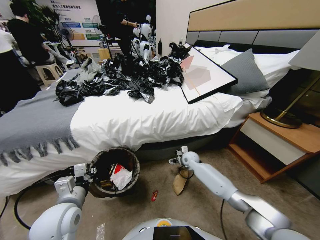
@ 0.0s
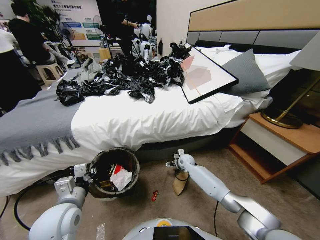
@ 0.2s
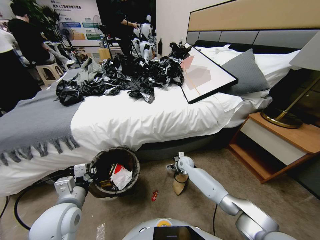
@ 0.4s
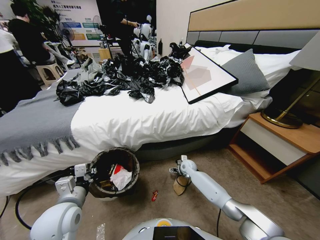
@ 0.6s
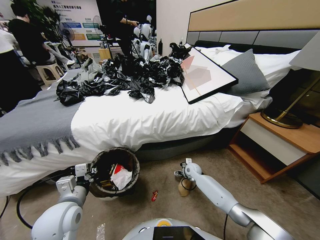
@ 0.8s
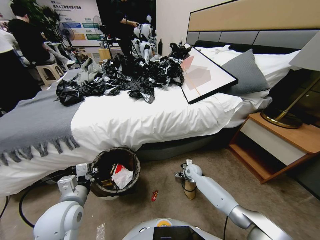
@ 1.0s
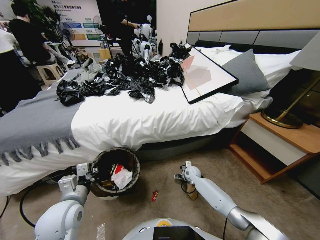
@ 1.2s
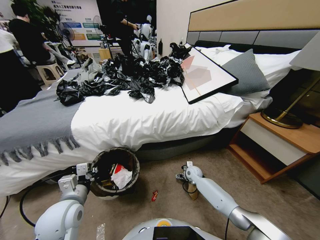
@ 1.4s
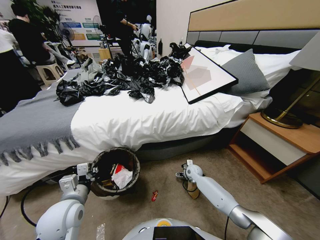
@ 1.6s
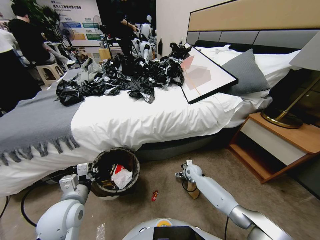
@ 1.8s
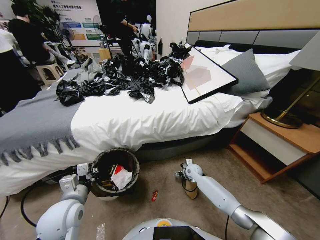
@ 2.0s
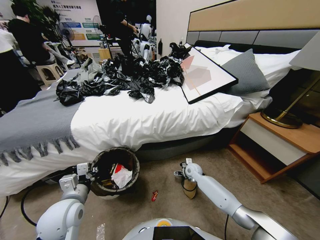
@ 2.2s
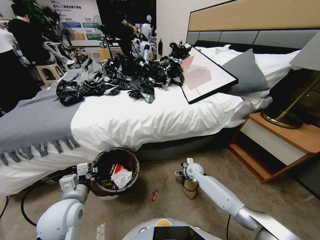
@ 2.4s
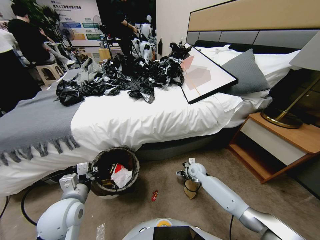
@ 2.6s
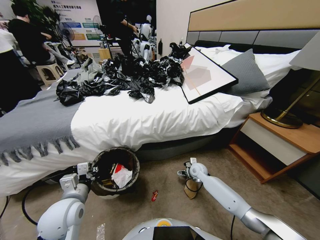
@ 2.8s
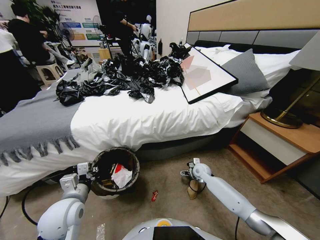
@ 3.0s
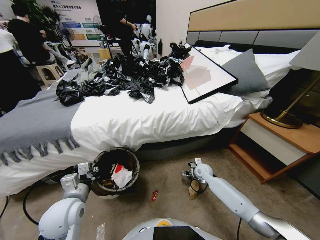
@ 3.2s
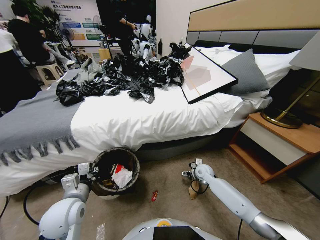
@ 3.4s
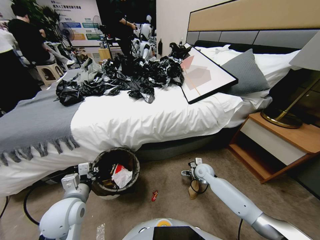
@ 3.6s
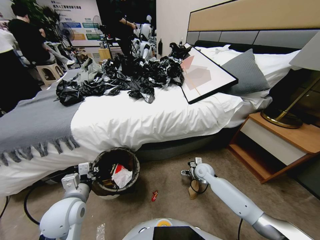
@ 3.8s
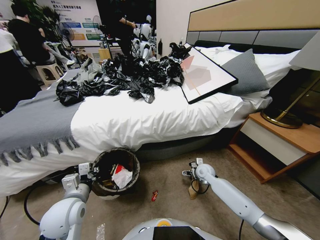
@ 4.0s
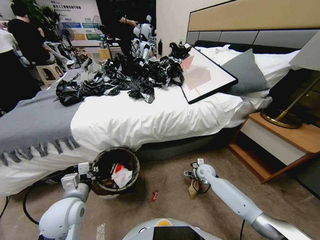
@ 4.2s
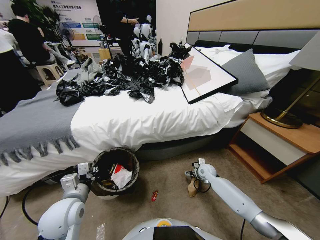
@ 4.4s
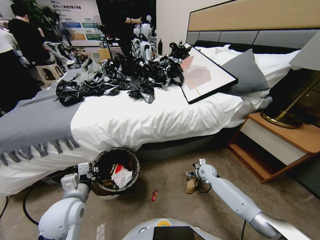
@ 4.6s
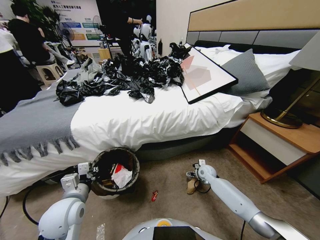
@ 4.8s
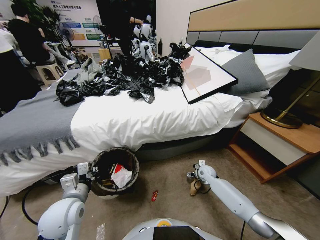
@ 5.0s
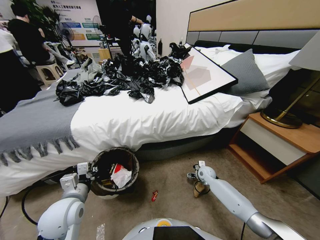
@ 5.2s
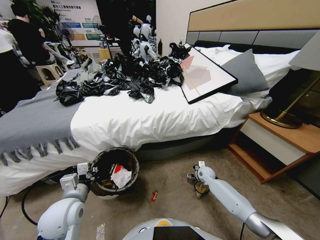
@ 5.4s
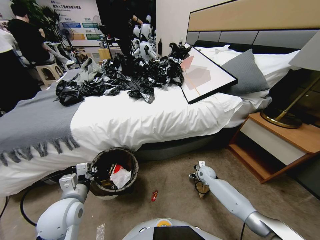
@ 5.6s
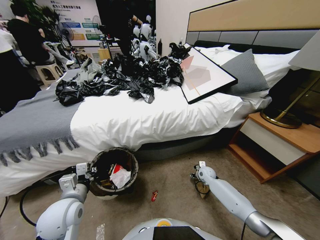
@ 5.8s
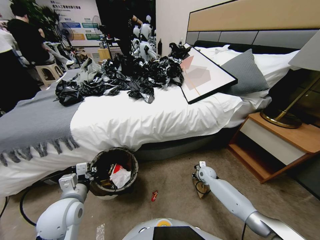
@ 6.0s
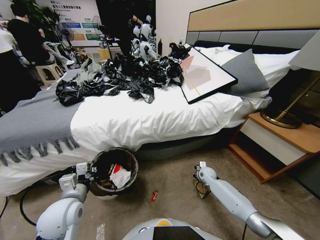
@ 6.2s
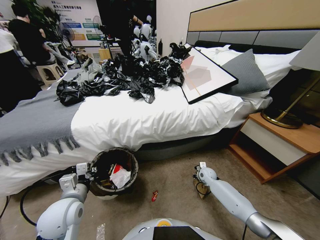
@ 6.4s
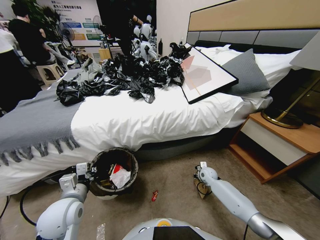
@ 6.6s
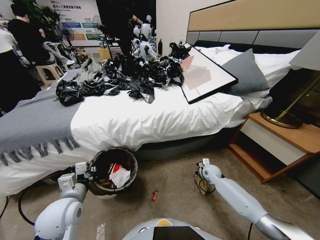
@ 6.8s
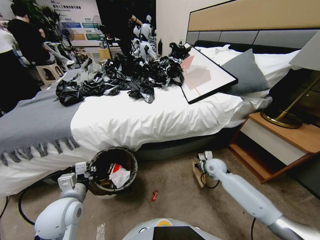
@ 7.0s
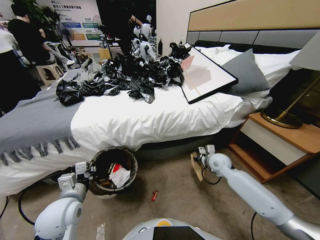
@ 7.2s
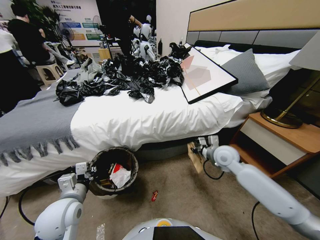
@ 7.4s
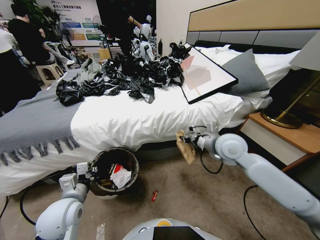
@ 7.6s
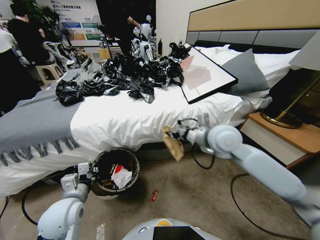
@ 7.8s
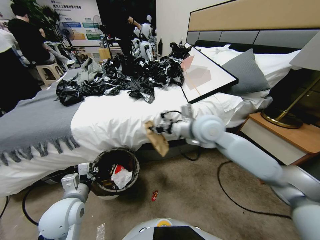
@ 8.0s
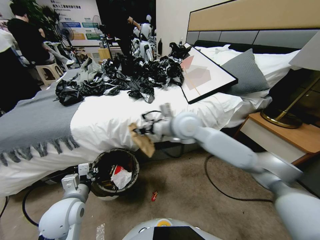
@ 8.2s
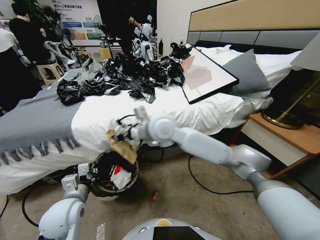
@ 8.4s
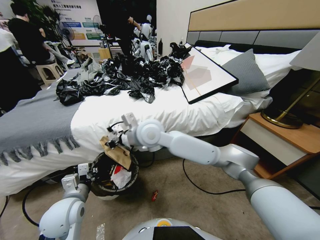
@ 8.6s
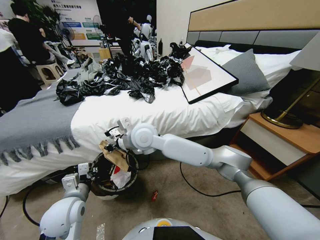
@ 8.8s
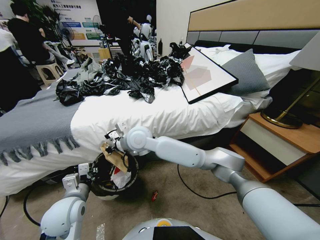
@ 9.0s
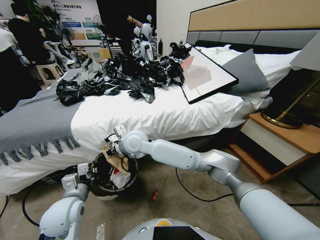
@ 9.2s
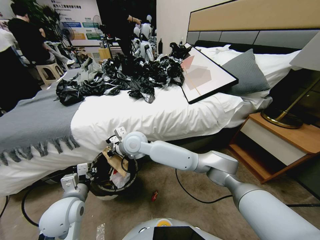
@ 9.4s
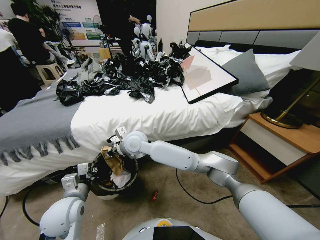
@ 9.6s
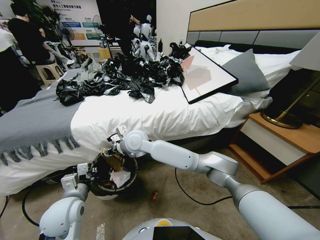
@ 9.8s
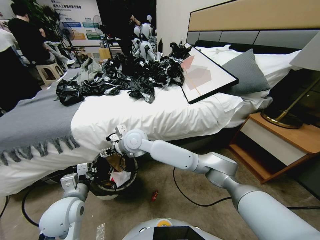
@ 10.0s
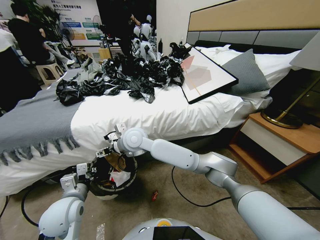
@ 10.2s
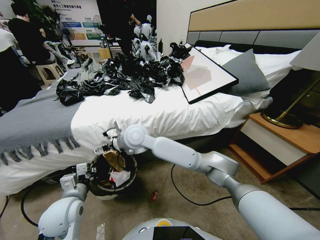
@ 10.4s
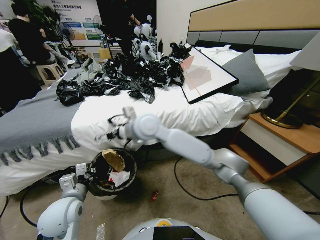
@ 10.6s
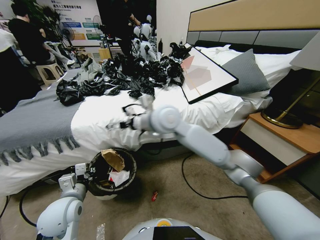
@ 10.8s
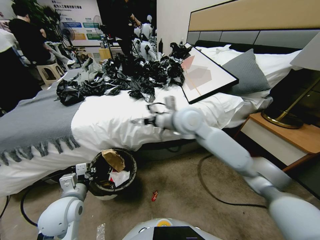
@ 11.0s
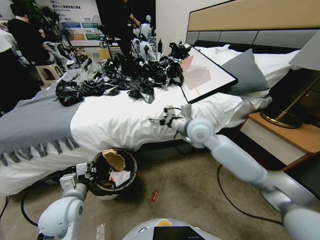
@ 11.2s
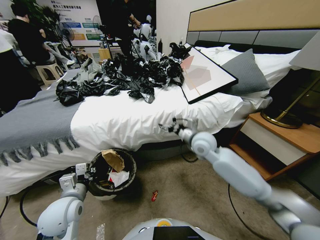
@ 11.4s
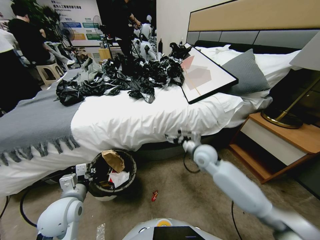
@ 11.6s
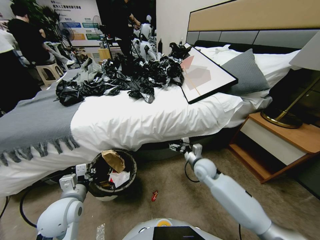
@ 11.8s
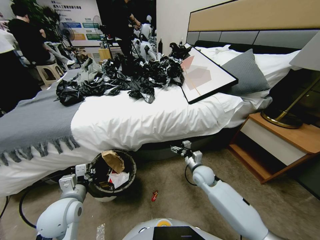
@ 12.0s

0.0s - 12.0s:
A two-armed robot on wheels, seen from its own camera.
Task of the whole recording: Pick up the trash bin, then pick up the garbage from the floor and place it into the trash bin.
0.0s - 1.6s: The right gripper shifts about 5 cm downward.
1.6s - 3.0s: The right gripper is displaced upward by roughly 5 cm.
3.0s - 4.4s: The grippers make only small movements.
4.4s - 6.0s: The right gripper closes.
6.0s - 7.6s: The right gripper moves upward, roughly 35 cm.
7.6s - 9.0s: The right gripper is displaced to the left by approximately 30 cm.
9.0s - 10.4s: The right gripper goes roughly 5 cm upward, and opens up.
10.4s - 12.0s: The right gripper shifts approximately 40 cm downward and to the right.

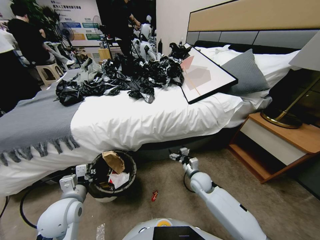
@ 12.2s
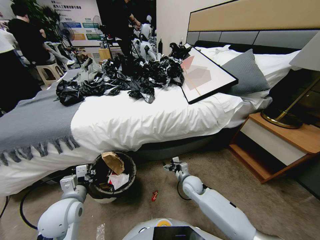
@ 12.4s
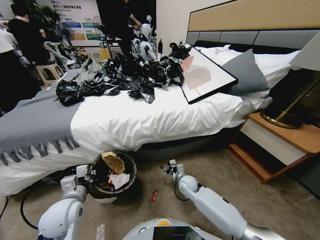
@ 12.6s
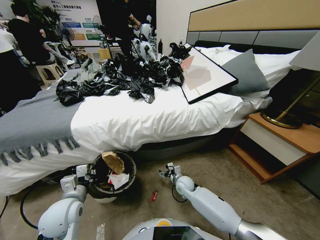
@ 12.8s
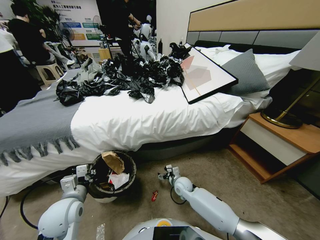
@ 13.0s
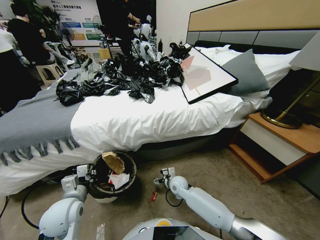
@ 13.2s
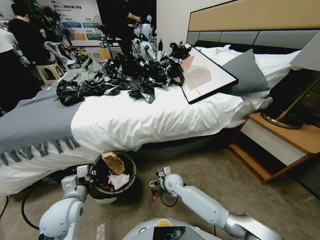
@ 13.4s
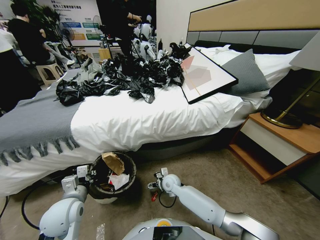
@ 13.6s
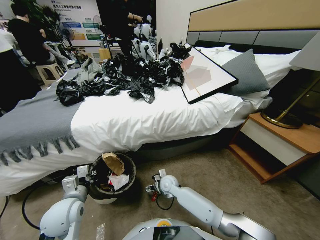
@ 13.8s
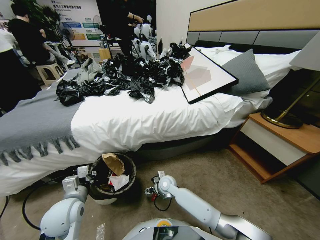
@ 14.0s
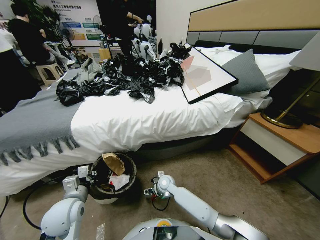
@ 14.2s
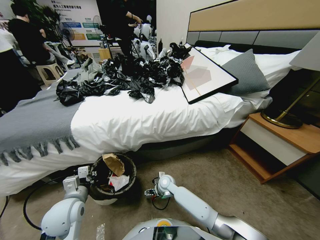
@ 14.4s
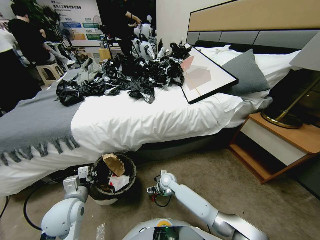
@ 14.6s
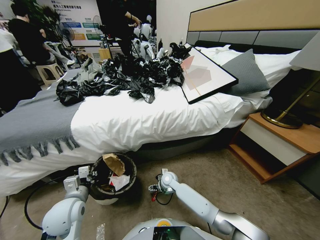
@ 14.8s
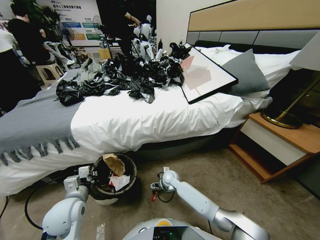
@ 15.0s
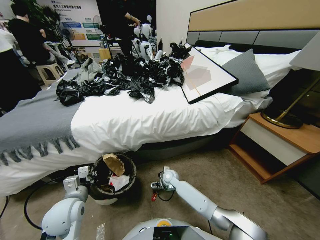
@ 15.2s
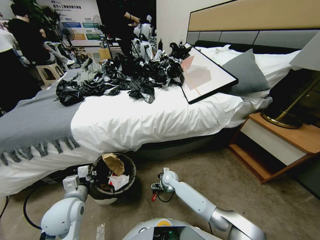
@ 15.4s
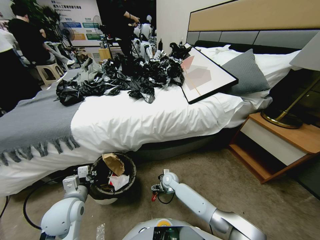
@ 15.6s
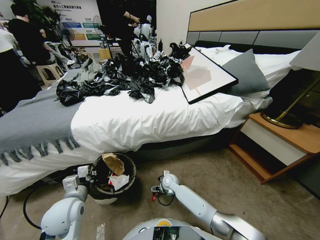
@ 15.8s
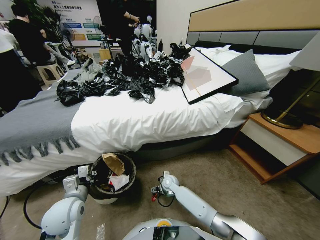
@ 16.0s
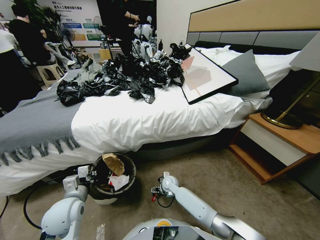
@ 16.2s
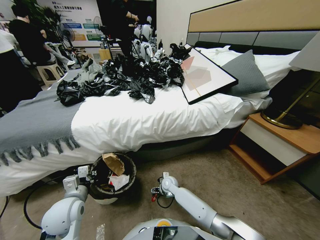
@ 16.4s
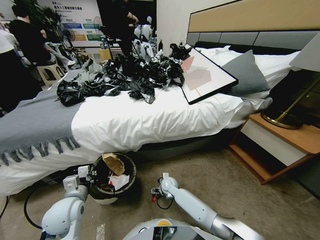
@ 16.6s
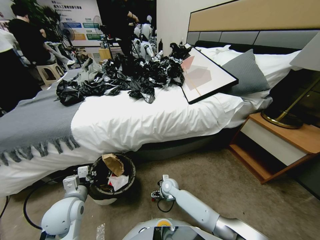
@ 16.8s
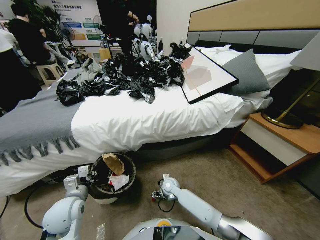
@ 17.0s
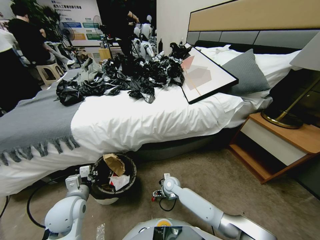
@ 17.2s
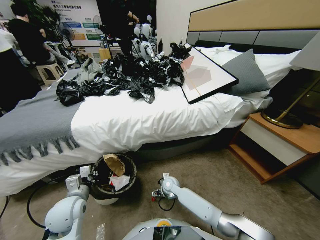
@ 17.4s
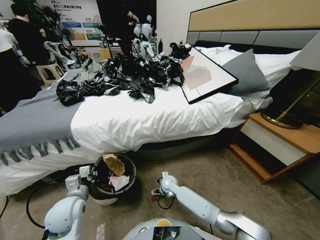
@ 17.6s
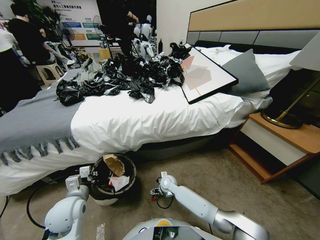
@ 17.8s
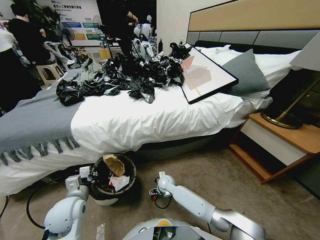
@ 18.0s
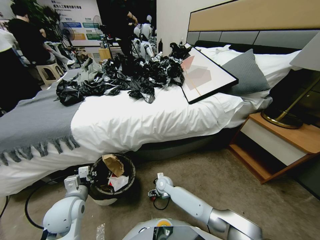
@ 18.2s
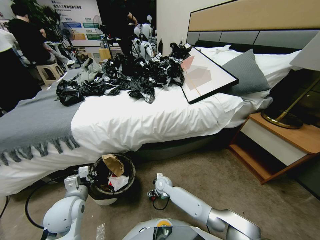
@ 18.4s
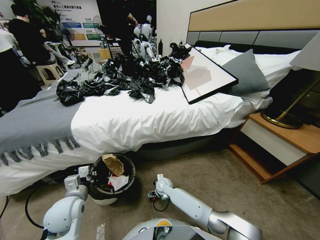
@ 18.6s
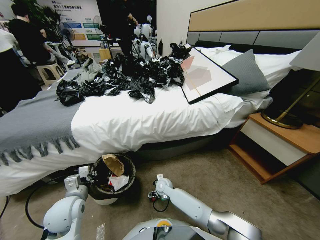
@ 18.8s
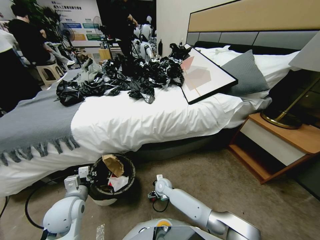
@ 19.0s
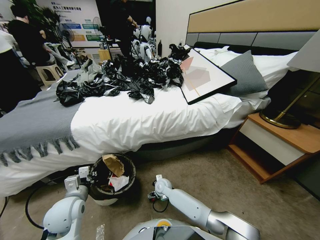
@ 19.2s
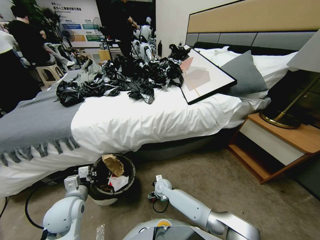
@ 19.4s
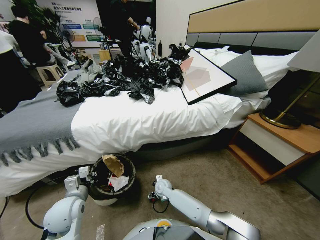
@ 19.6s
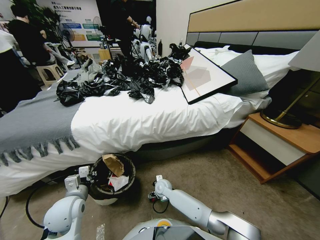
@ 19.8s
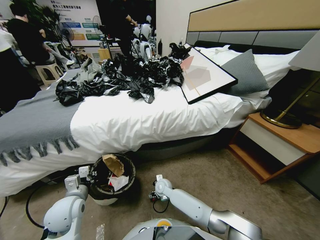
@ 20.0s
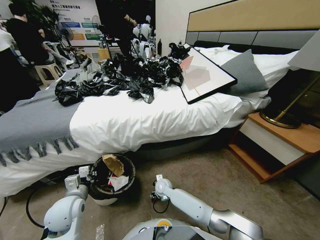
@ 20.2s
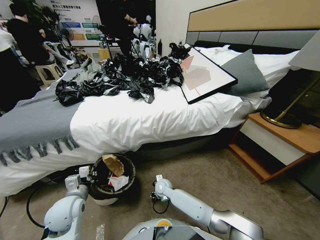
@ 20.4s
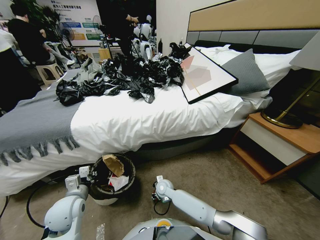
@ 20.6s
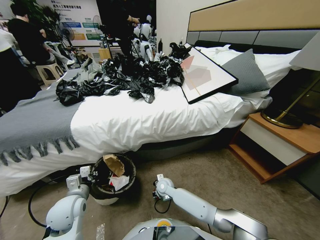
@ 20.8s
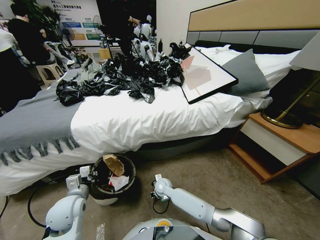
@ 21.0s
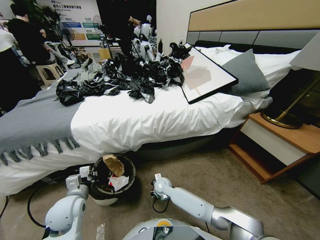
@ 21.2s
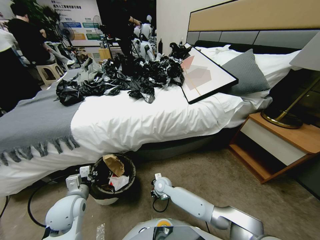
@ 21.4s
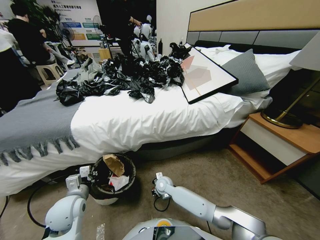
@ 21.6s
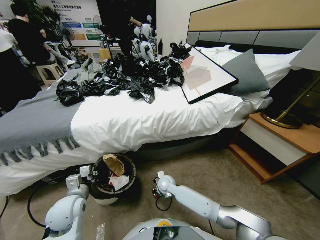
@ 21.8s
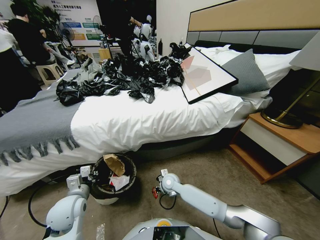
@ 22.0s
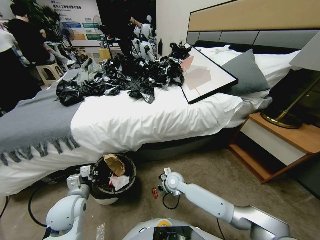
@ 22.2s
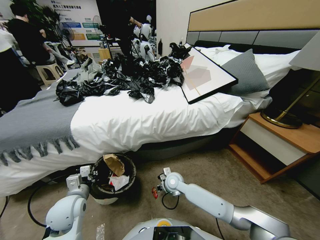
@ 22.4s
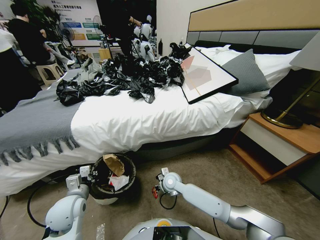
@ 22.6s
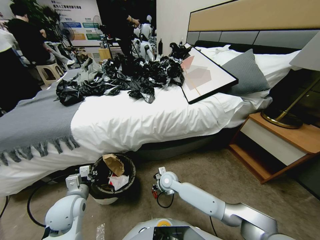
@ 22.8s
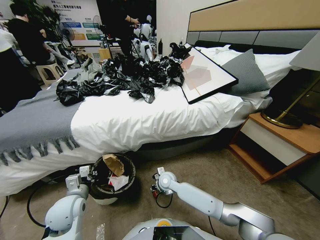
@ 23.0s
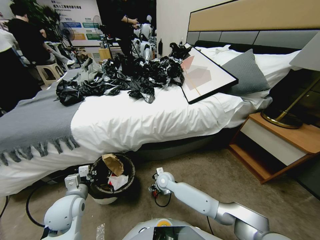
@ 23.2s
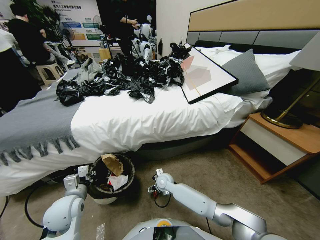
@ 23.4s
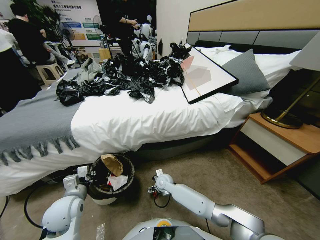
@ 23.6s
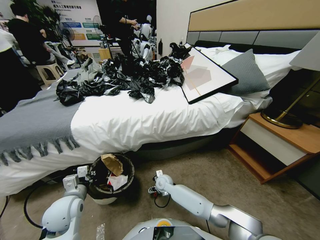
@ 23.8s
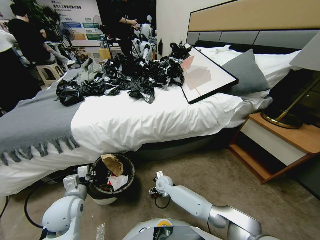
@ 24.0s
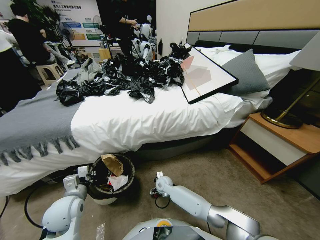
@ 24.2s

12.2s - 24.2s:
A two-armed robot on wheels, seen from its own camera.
Task of the whole recording: Pick up the trash bin, then pick up the garbage from the floor and place it into the trash bin.
12.2s - 13.8s: The right gripper goes some 15 cm to the left.
13.8s - 15.2s: The right gripper changes place by some 5 cm.
15.2s - 18.2s: There are only small adjustments of the grippers.
18.2s - 19.8s: The grippers make only small movements.
19.8s - 21.2s: The right gripper closes up.
21.2s - 22.6s: The right gripper is displaced upward by approximately 5 cm.
22.6s - 24.2s: The right gripper goes some 10 cm downward, and opens.
